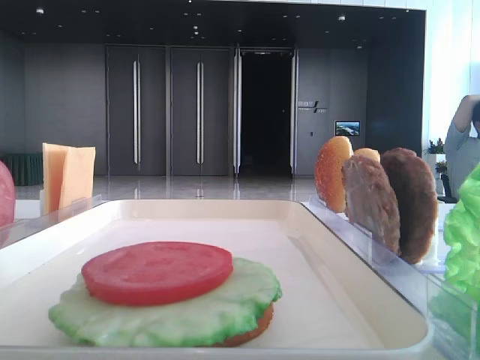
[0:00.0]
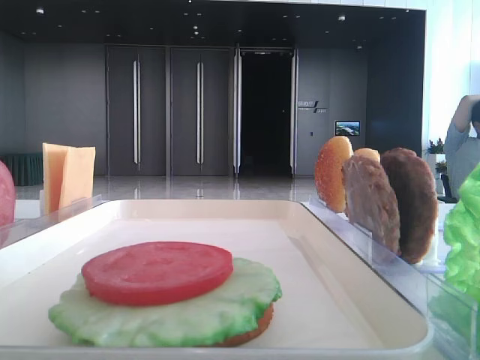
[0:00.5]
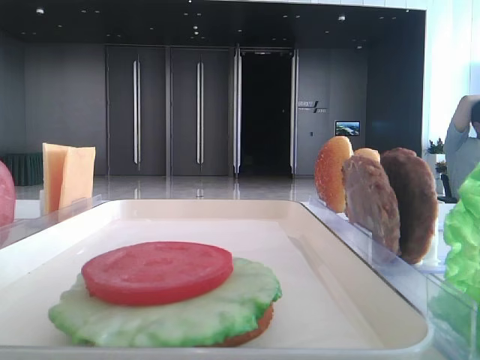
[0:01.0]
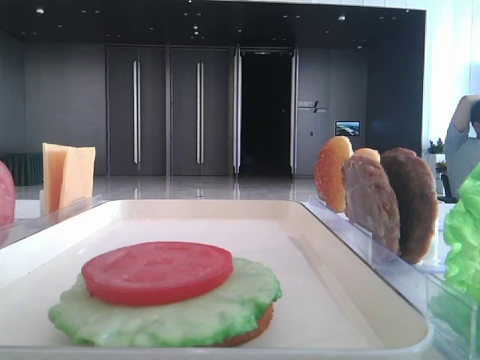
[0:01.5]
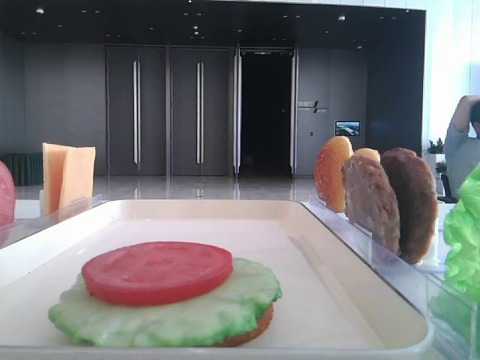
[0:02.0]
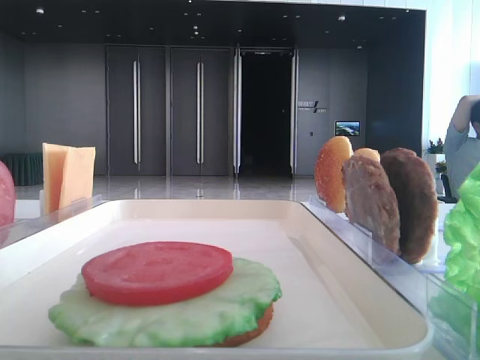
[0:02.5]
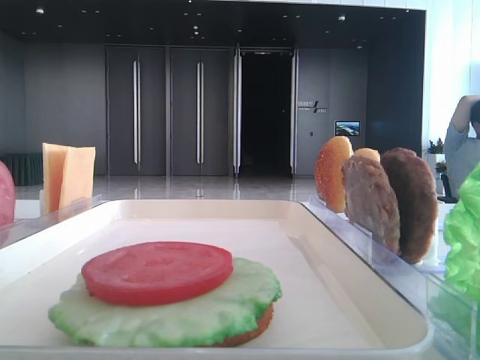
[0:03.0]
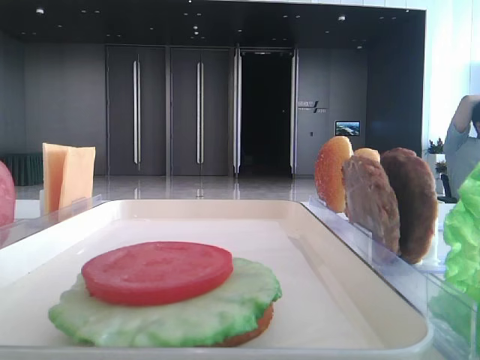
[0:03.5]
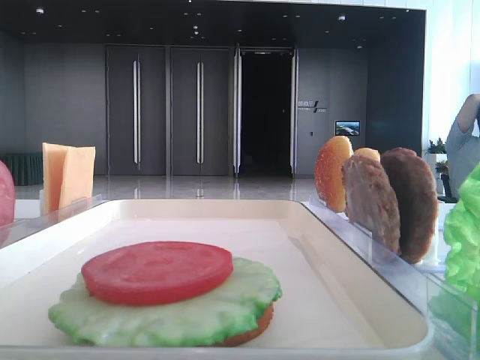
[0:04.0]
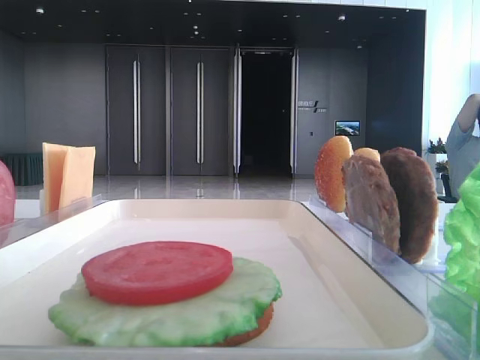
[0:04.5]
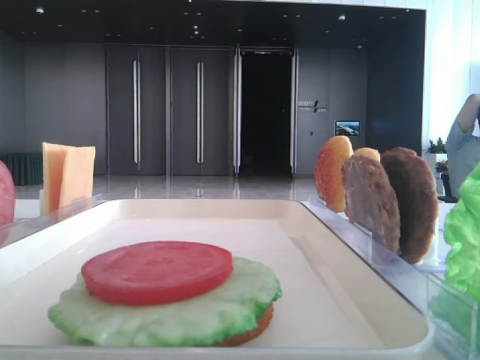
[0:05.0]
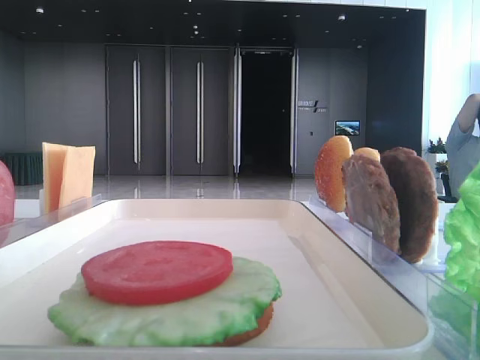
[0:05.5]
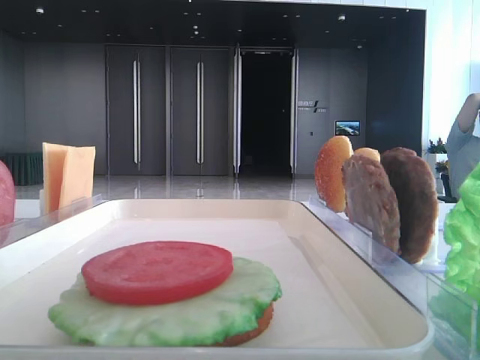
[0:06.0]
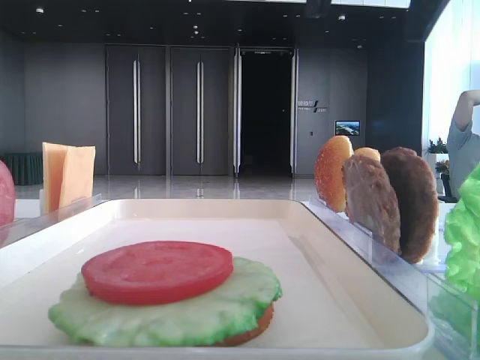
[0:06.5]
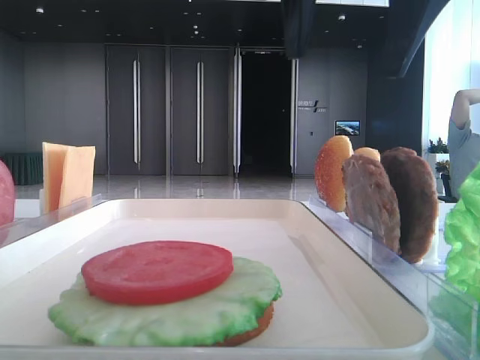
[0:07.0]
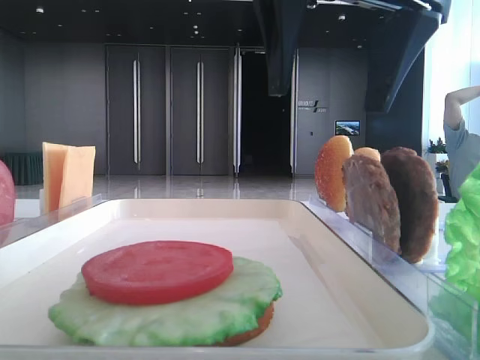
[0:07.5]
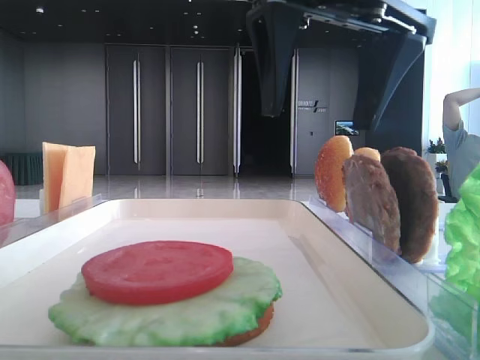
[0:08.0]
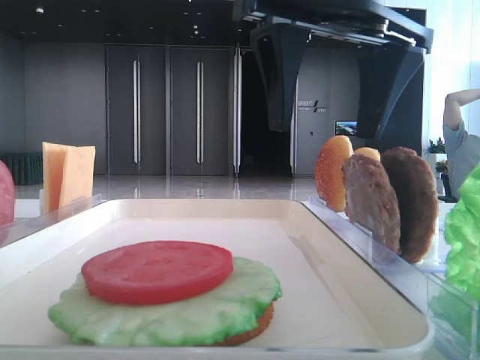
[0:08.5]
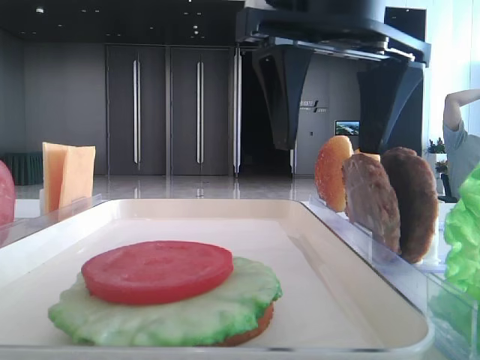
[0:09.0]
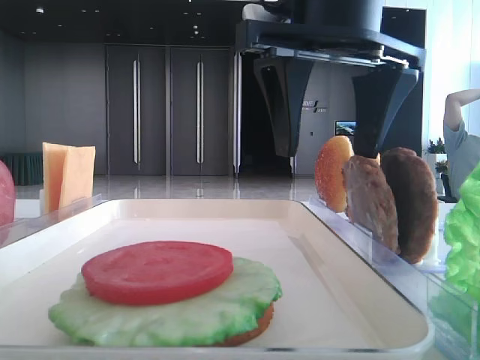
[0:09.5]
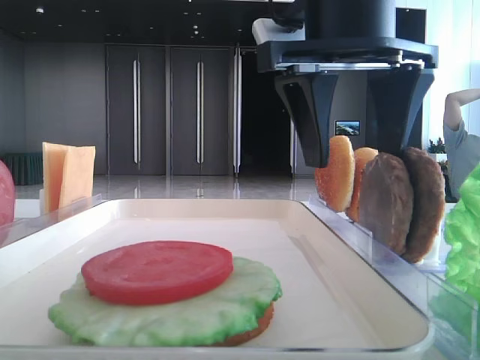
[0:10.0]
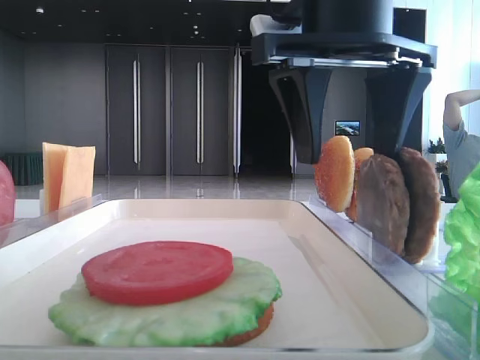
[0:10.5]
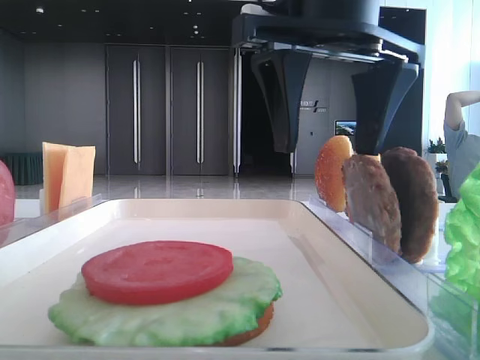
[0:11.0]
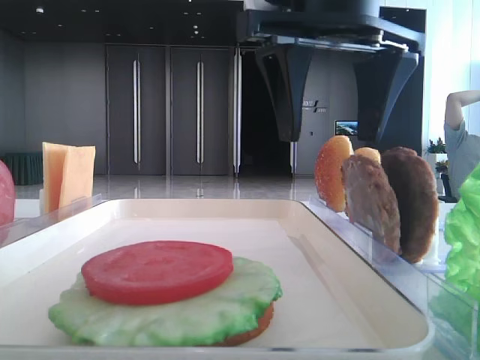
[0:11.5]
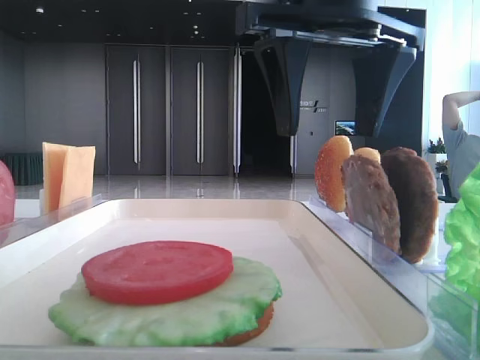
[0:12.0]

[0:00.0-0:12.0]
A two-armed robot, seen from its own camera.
6.0 to 8.0 s: The right gripper goes approximately 15 cm to the left and downward.
8.0 to 12.0 s: The grippers stay close to where they were, moving slightly.

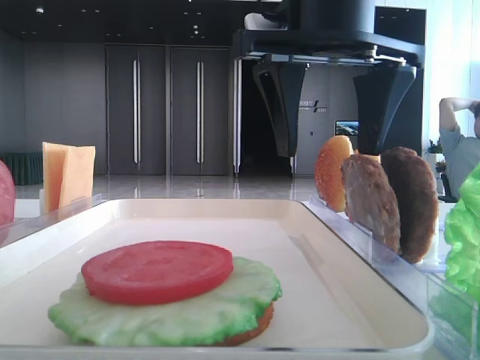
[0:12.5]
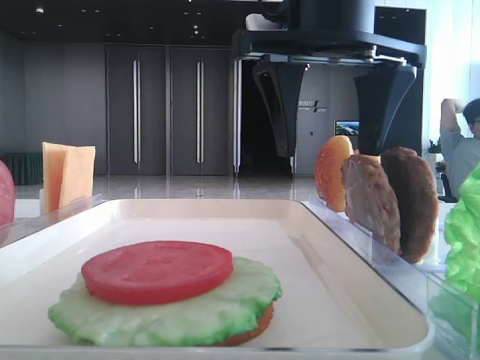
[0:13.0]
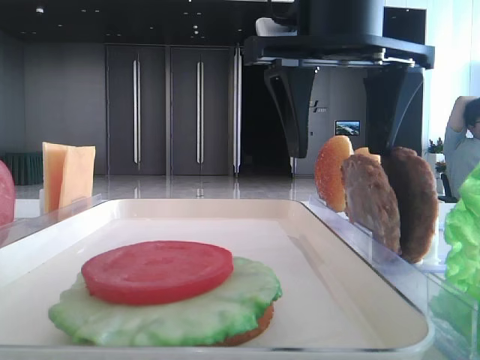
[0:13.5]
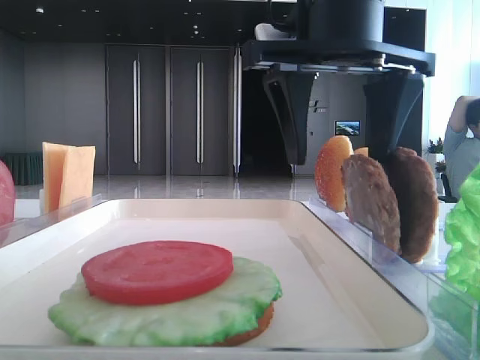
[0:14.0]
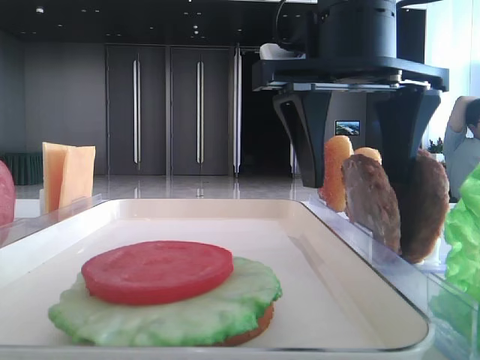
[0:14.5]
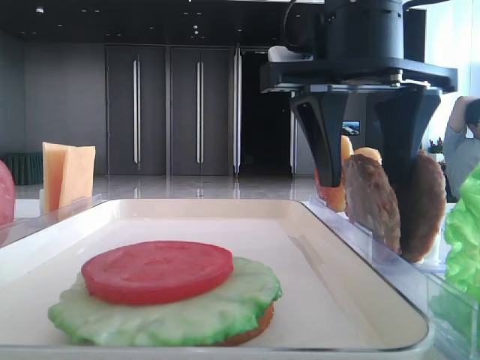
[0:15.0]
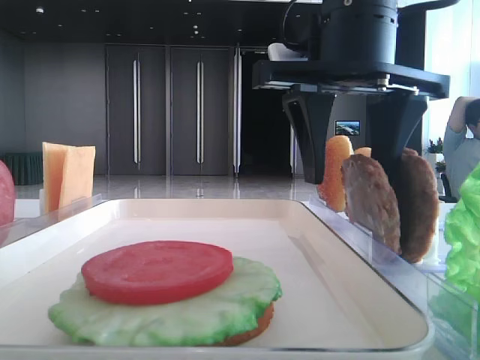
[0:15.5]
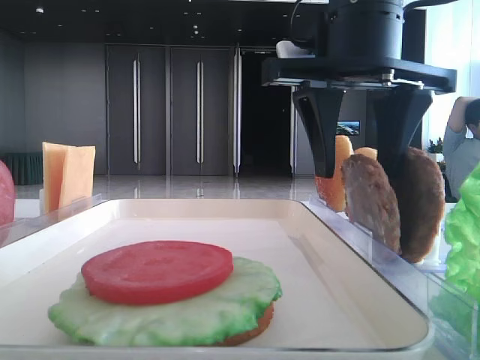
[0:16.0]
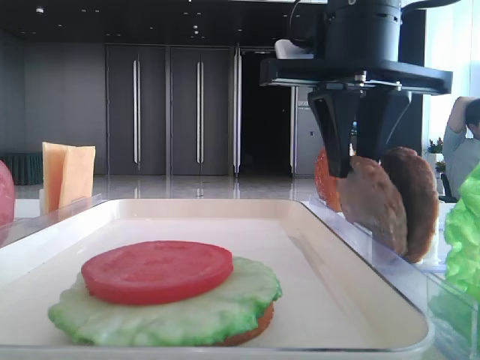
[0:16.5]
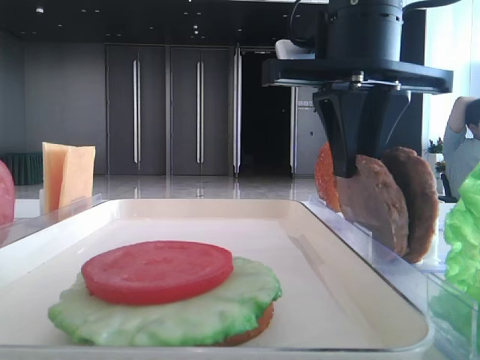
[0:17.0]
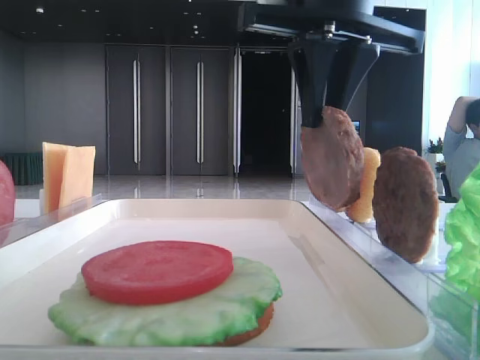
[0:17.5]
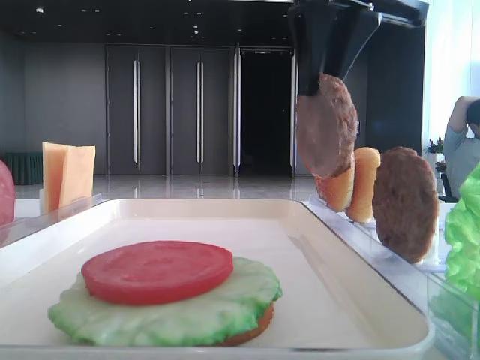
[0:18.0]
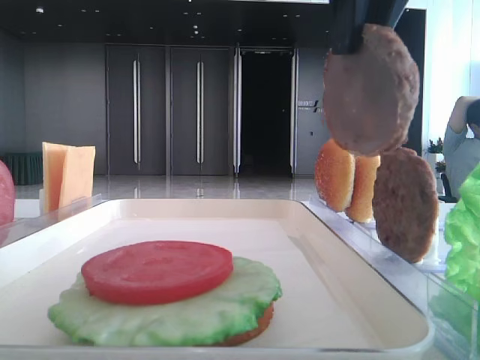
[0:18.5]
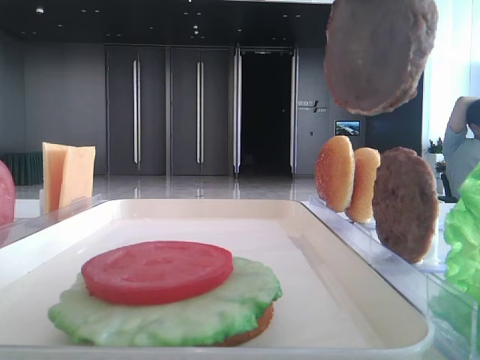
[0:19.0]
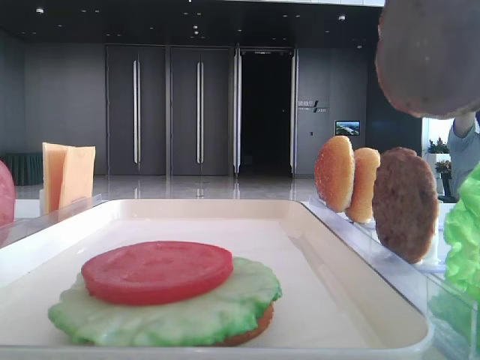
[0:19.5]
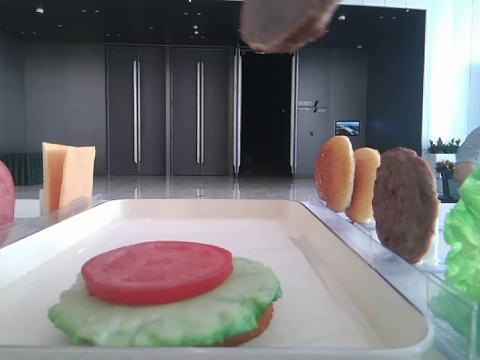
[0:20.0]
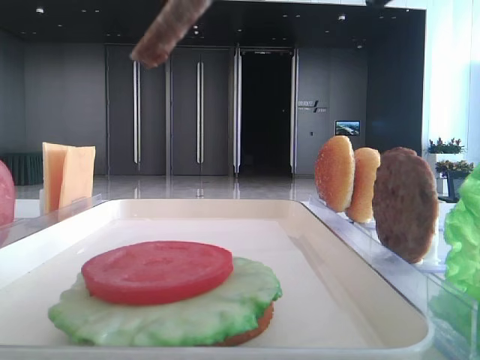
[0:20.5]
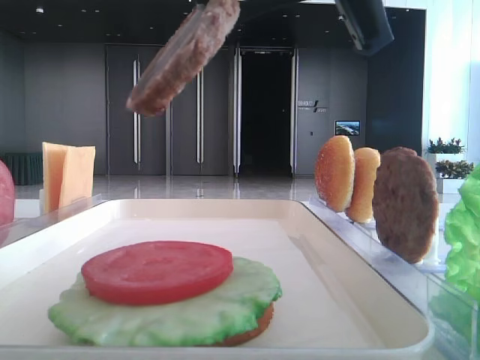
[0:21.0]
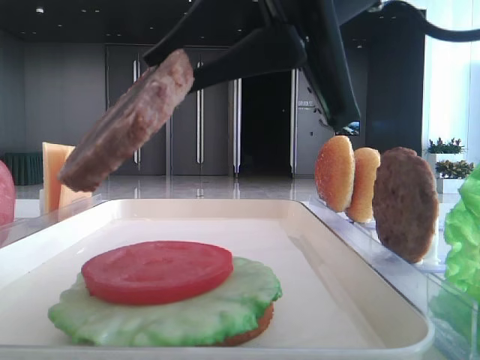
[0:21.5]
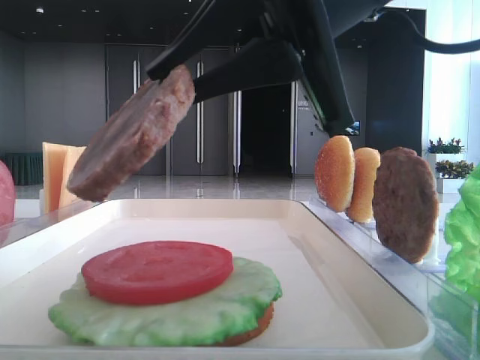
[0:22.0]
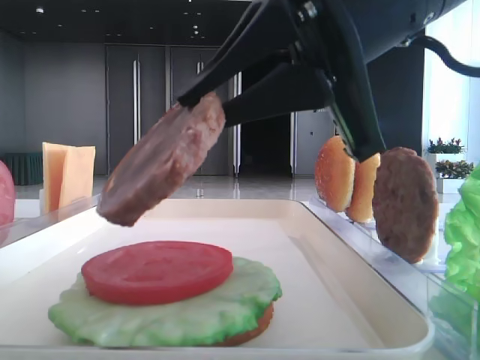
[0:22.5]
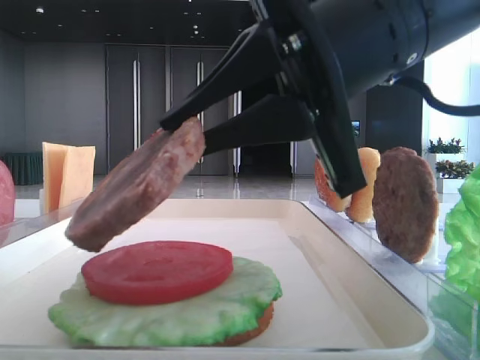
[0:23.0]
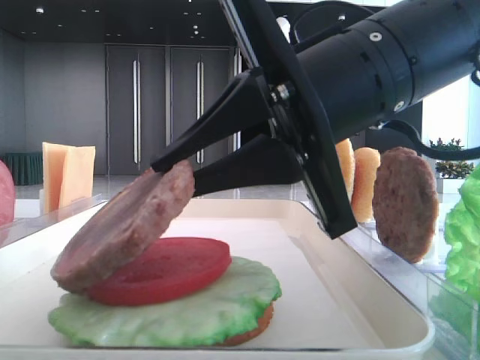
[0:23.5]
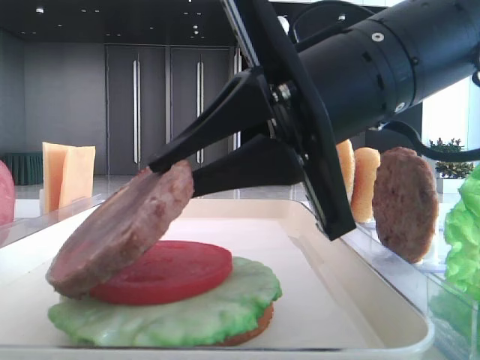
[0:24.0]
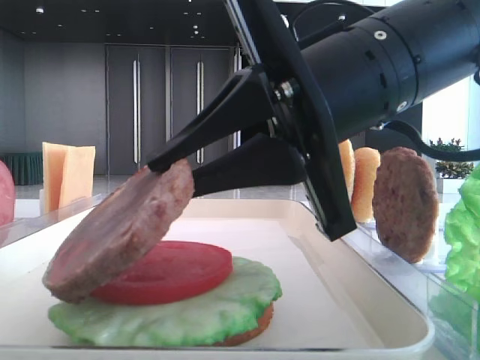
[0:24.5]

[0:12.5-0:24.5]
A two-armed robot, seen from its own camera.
Step, 12.5 to 16.5 s: Grab the patty with the right hand.
12.5 to 14.5 s: The grippers move only a little.
14.5 to 16.5 s: The right gripper closes up.
16.5 to 18.5 s: The right gripper travels upward and backward by some 10 cm.
20.5 to 22.5 s: The right gripper heads downward, covering roughly 10 cm.

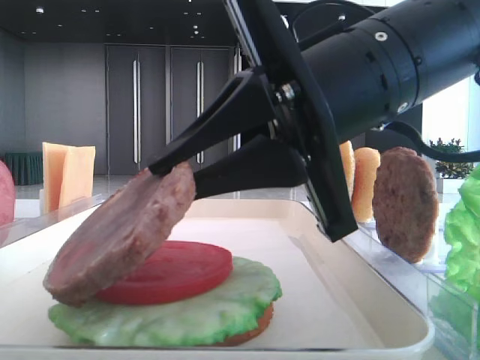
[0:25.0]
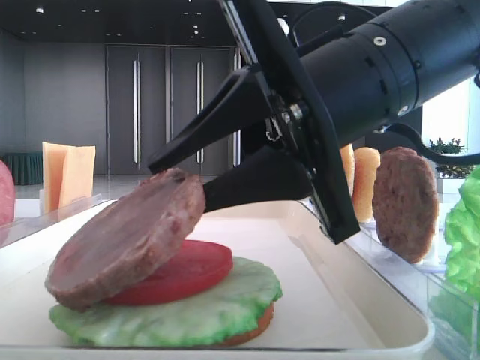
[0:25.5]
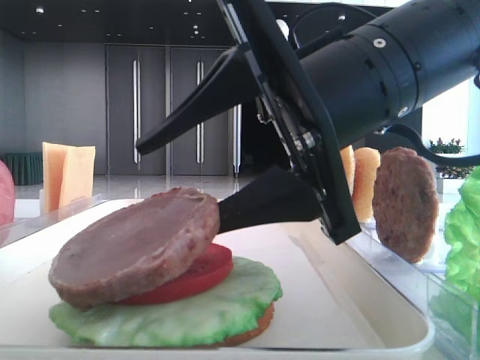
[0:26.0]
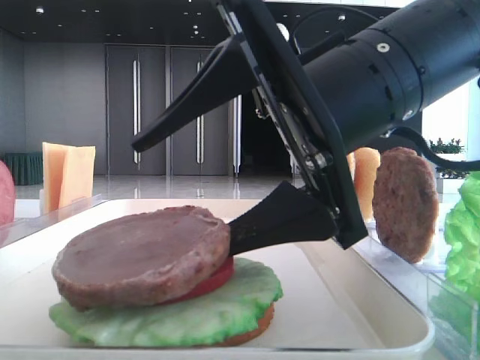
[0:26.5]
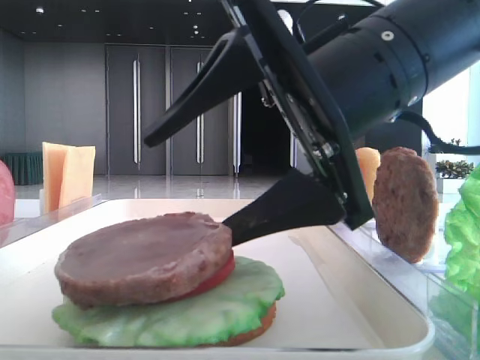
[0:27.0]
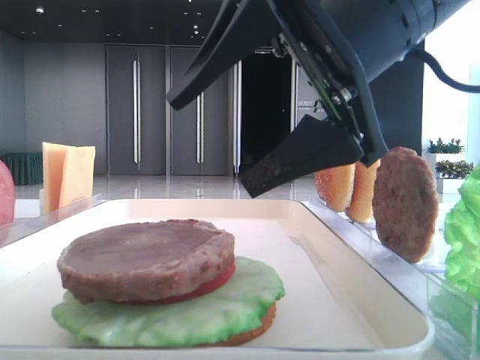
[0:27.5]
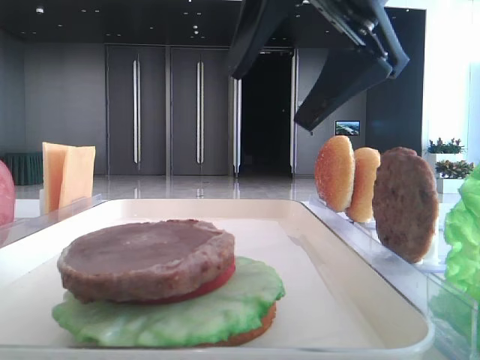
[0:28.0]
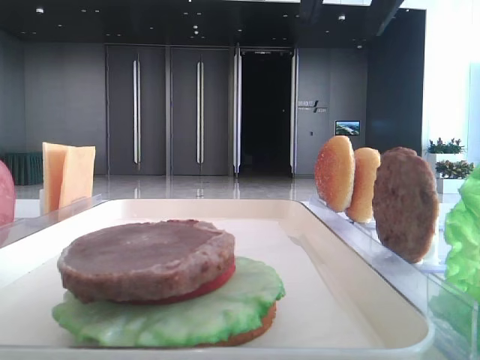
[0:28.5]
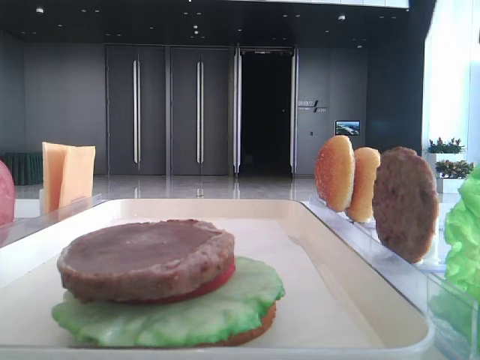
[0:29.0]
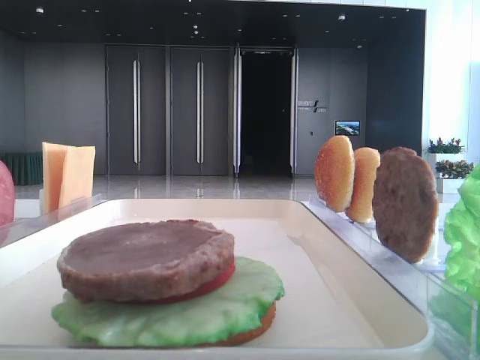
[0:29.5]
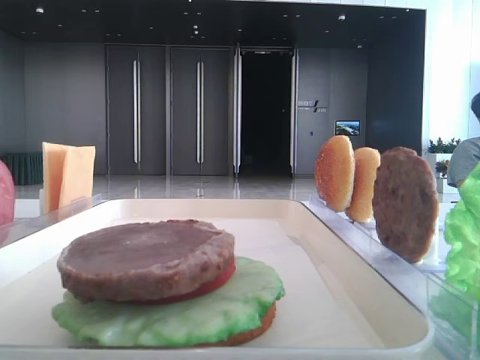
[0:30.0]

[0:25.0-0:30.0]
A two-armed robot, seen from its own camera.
Step, 25.0 to 27.0 s: Place the patty on the tomato slice with the right hand.
25.0 to 27.5 s: The right gripper opens its fingers.
27.5 to 30.0 s: The right gripper travels to the right and upward by approximately 25 cm.
